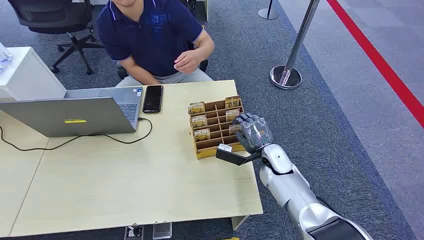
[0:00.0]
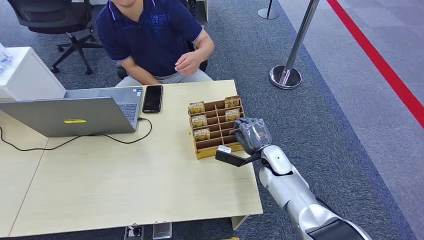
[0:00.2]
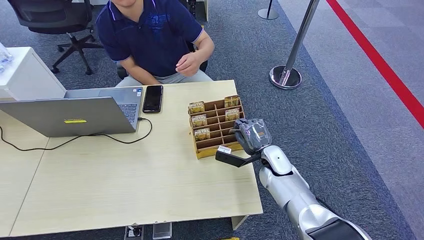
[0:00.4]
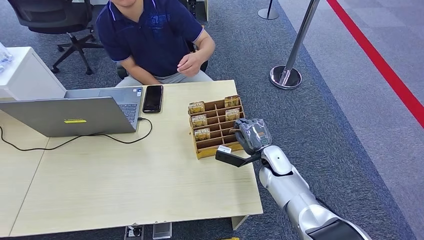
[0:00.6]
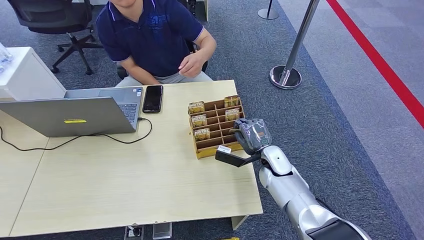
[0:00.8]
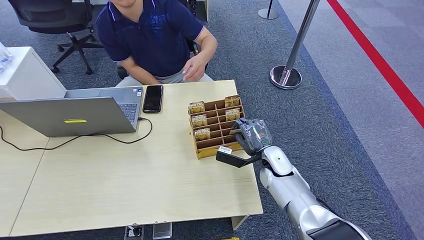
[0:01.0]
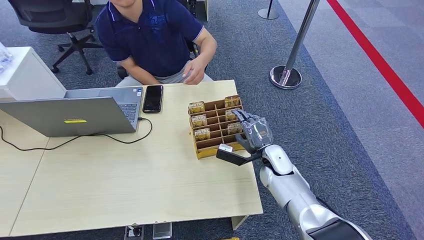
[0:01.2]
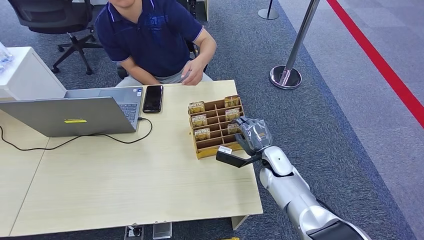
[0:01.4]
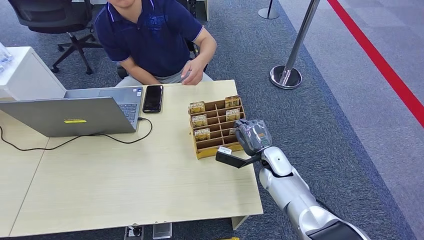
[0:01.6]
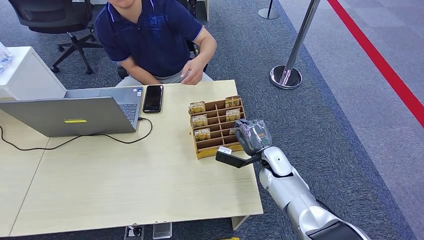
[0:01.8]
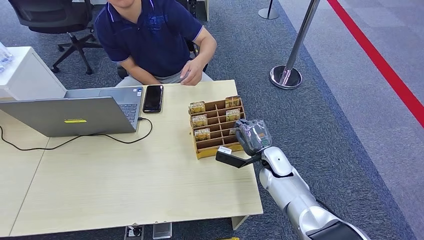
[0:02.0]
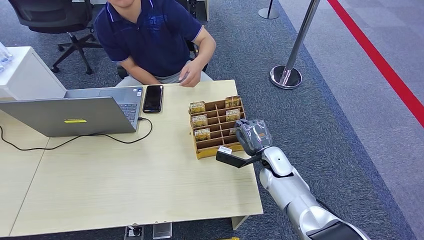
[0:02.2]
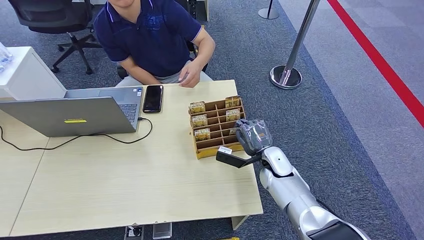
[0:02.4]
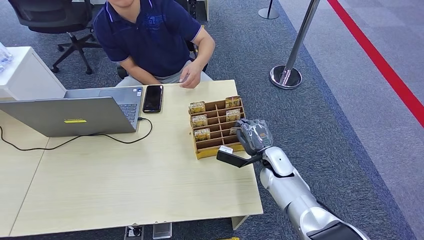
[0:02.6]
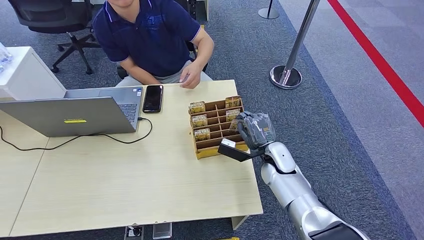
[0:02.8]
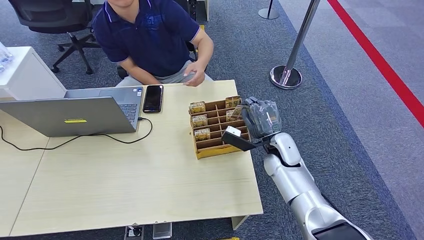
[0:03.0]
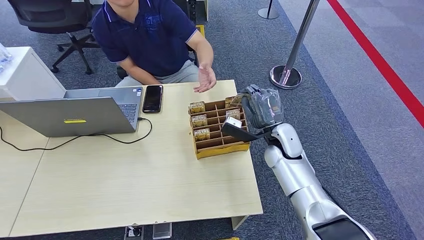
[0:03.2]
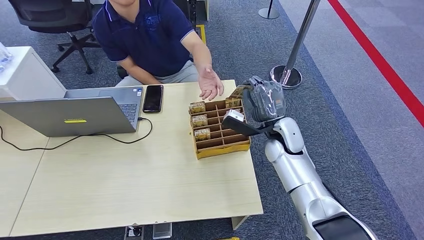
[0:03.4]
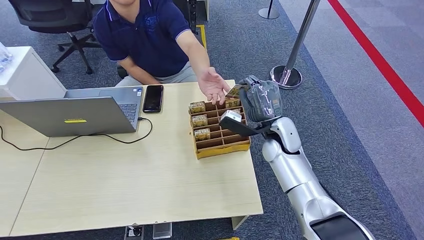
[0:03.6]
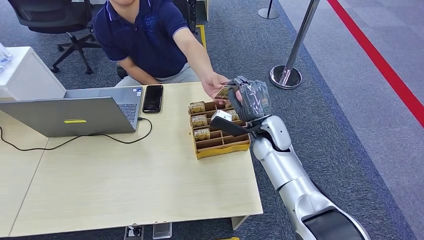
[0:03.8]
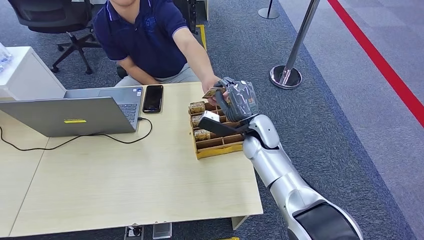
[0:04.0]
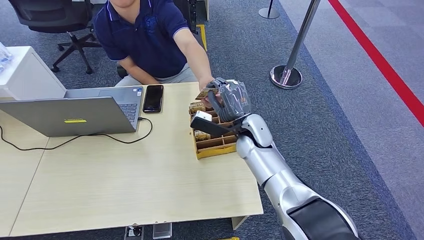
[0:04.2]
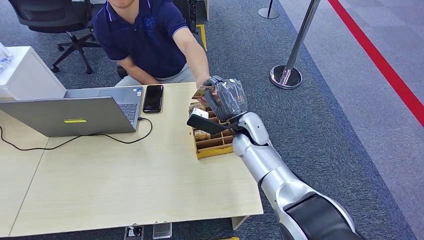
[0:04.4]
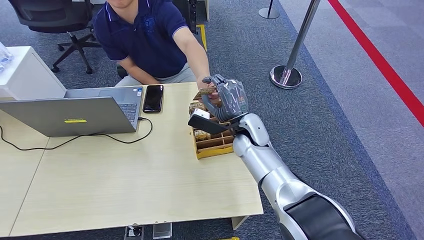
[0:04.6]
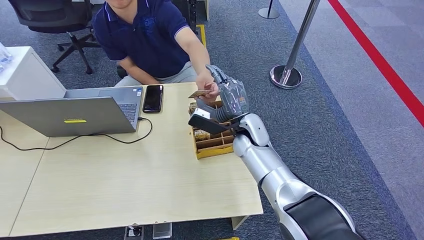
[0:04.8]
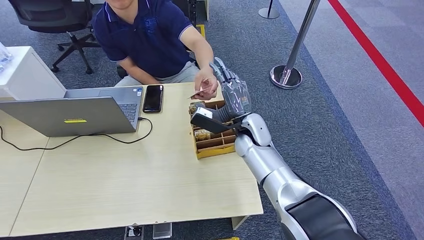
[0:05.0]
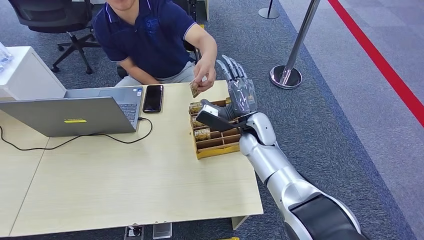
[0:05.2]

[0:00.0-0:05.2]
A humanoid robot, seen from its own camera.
Step, 0:00.0 to 0:03.4: Pick up the key card from the card box.
Step, 0:03.6 to 0:05.2: Hand the key card to the target.
0:01.8 to 0:03.4: The right hand moves upward, some 10 cm.
0:03.4 to 0:05.2: The right hand travels to the left by some 5 cm.
